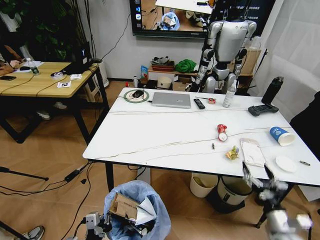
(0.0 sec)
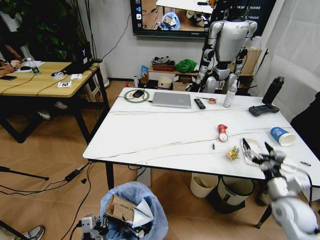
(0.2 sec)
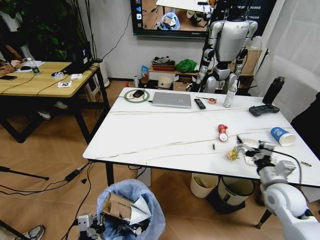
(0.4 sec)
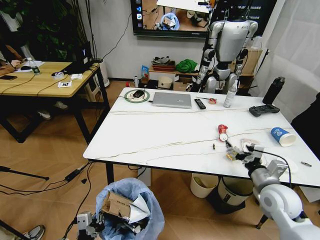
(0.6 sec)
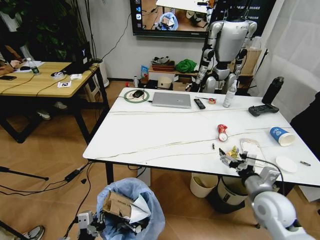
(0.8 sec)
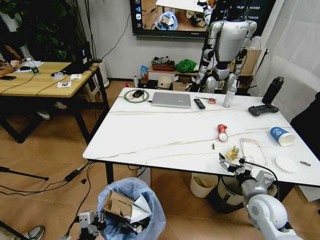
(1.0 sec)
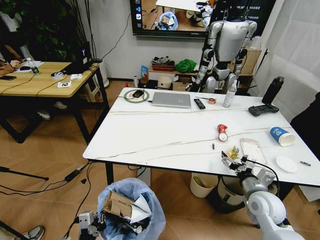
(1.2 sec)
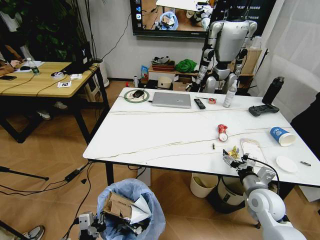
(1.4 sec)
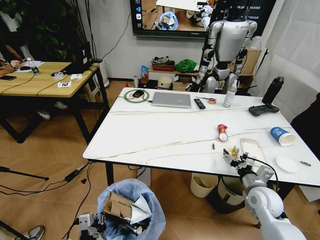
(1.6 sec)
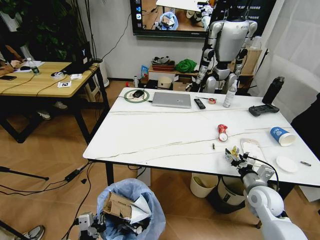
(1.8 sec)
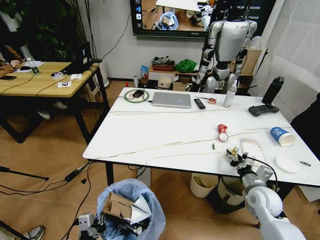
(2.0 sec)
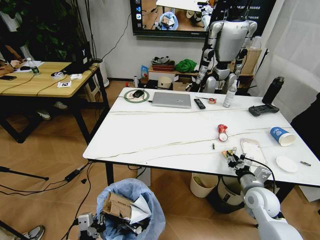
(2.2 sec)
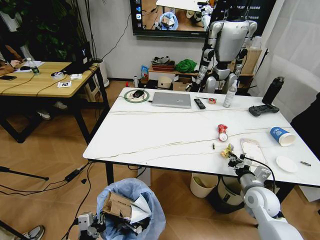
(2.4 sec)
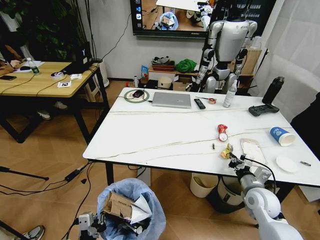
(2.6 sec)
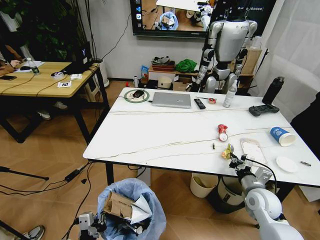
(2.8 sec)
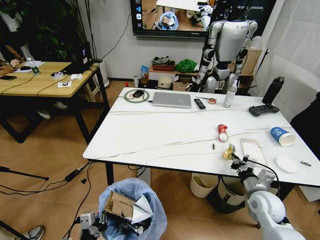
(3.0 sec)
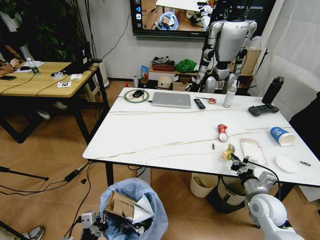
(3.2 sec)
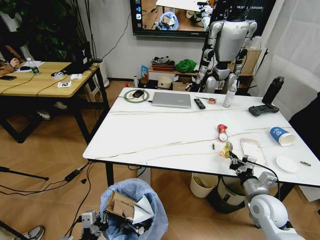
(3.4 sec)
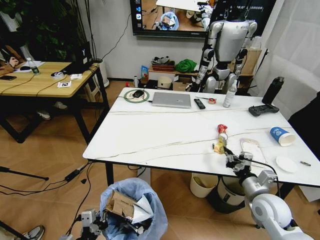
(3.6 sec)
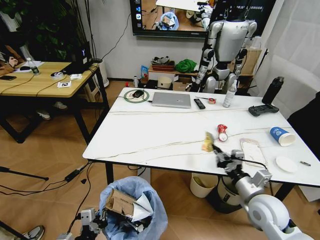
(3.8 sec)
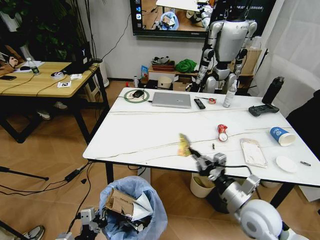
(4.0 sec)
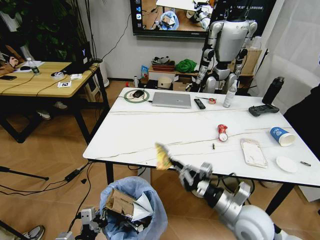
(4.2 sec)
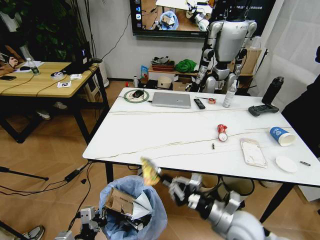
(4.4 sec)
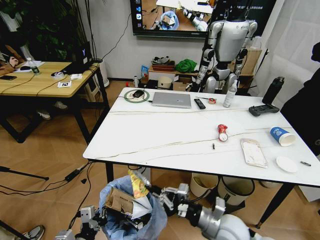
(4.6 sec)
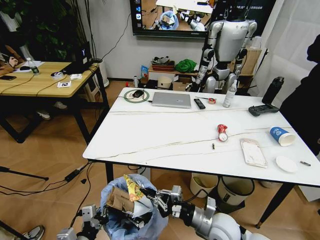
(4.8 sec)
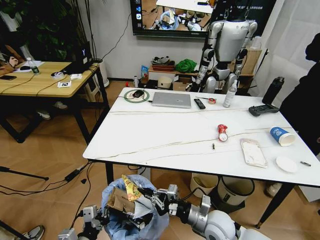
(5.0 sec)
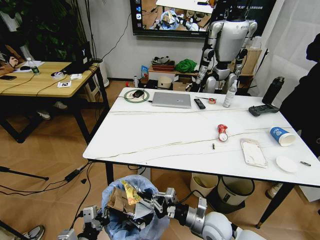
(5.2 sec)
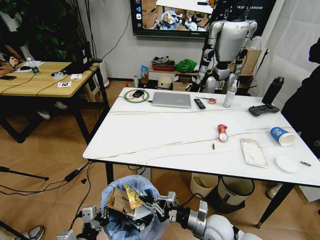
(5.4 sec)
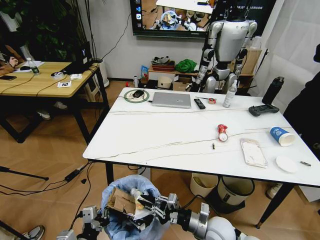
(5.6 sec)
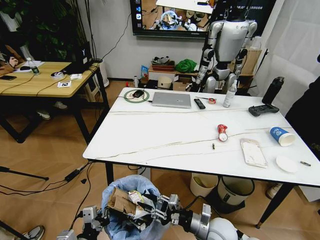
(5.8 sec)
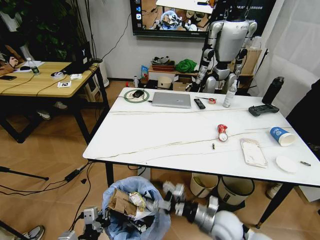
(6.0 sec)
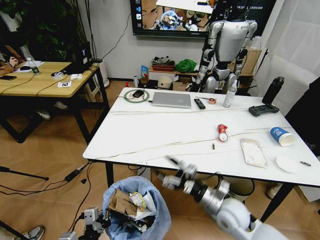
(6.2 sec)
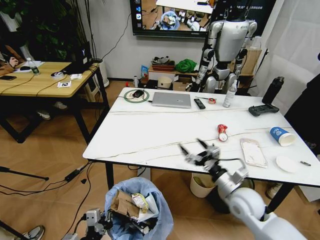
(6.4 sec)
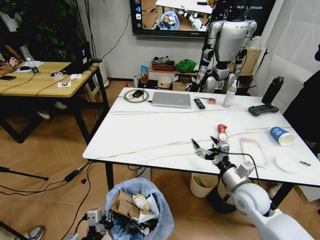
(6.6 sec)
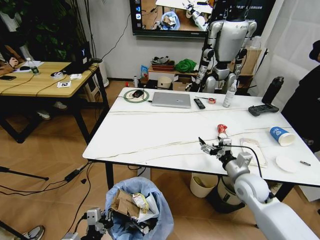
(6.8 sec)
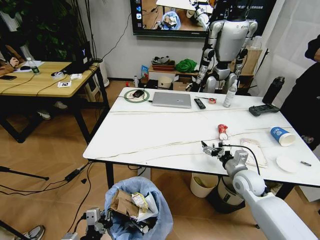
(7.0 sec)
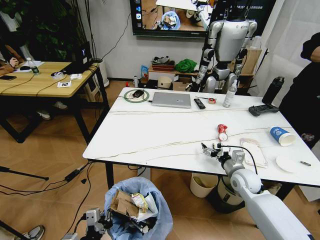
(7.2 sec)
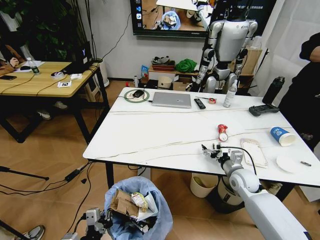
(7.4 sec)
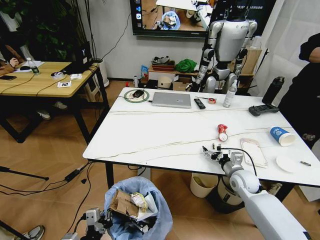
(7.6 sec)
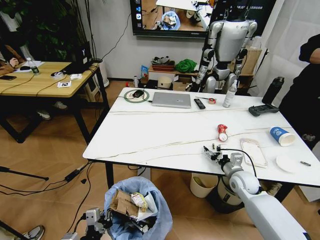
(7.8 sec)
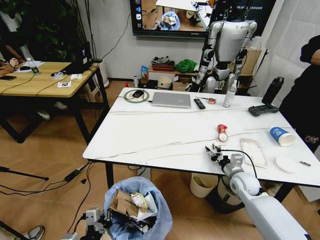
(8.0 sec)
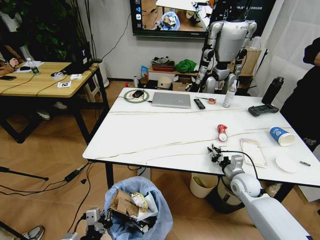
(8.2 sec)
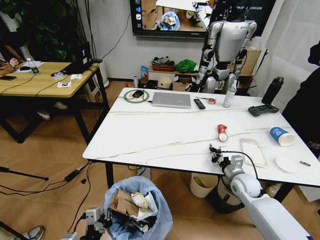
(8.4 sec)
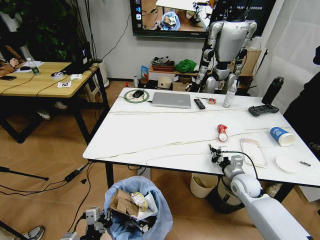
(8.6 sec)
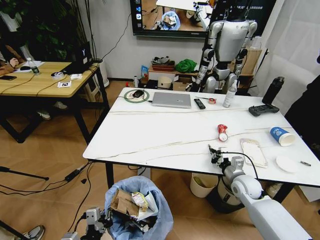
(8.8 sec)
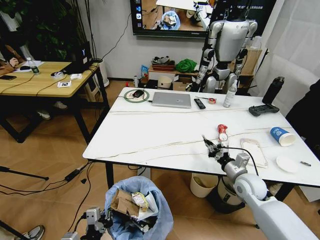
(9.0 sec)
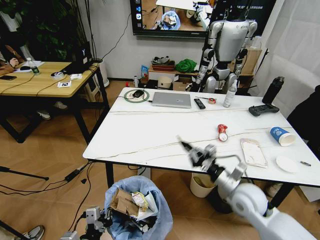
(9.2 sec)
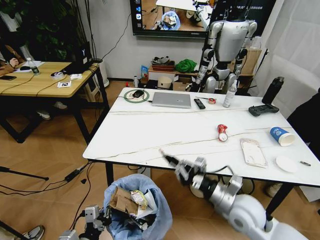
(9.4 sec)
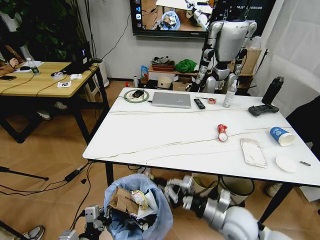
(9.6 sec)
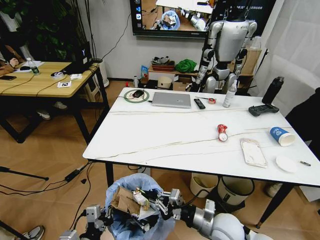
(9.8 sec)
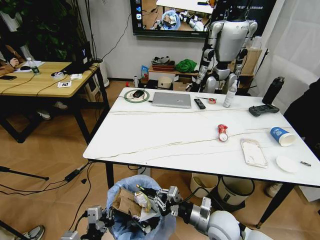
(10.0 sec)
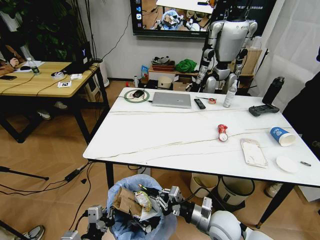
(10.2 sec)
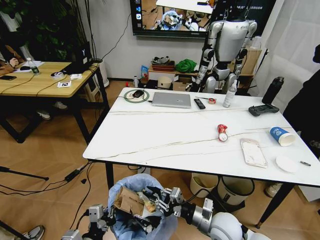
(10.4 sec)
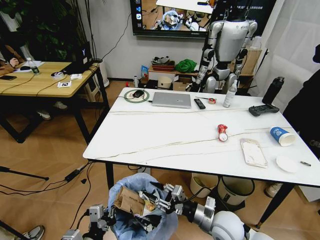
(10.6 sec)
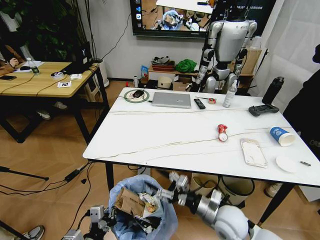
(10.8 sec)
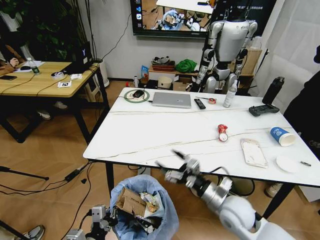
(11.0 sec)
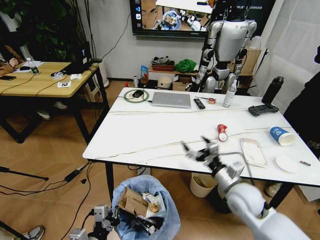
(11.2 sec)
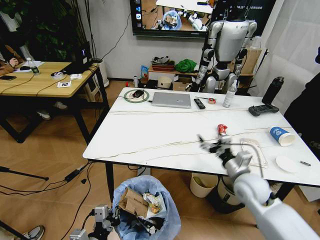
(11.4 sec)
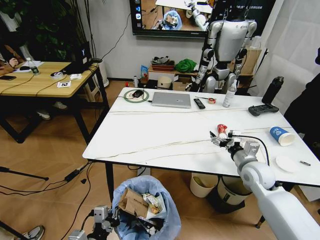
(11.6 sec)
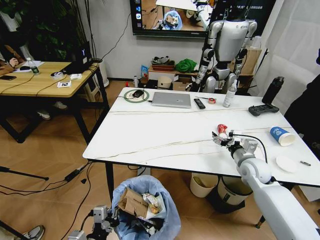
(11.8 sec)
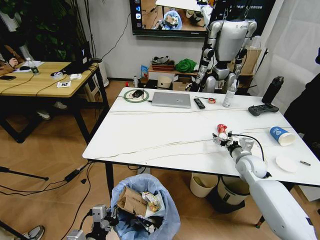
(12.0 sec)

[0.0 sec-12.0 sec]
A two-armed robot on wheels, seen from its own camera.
Task of the whole recording: Pick up the trash bin and place the trash from the table into it.
0.0 sec to 1.6 sec: The right gripper heads forward, upward and to the left, covering approximately 15 cm.
1.6 sec to 3.0 sec: The right gripper closes.
3.0 sec to 4.4 sec: The right gripper moves to the left and backward, roughly 15 cm.
4.4 sec to 6.0 sec: The right gripper heads downward, covering approximately 5 cm, and opens.
6.0 sec to 7.6 sec: The right gripper shifts some 20 cm forward and to the right, and opens.
7.6 sec to 9.0 sec: The right gripper changes place by approximately 5 cm, and closes.
9.0 sec to 10.4 sec: The right gripper heads backward and to the left, covering roughly 15 cm.
10.4 sec to 12.0 sec: The right gripper goes some 25 cm forward and to the right, and opens its fingers.

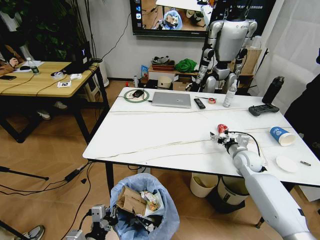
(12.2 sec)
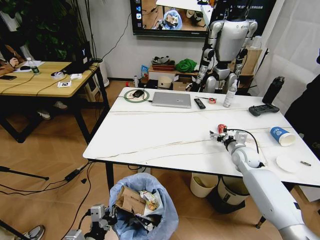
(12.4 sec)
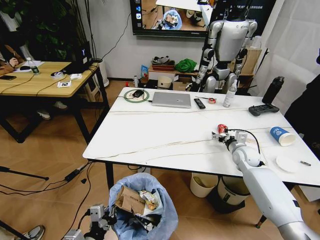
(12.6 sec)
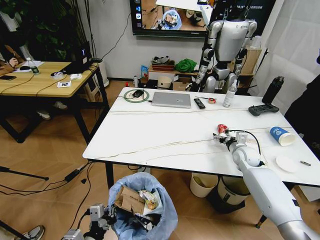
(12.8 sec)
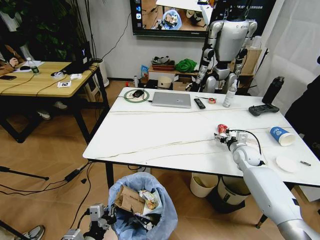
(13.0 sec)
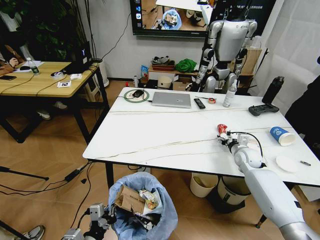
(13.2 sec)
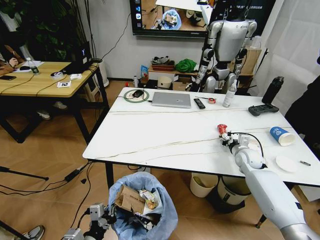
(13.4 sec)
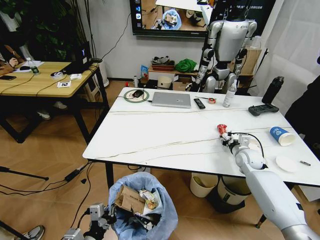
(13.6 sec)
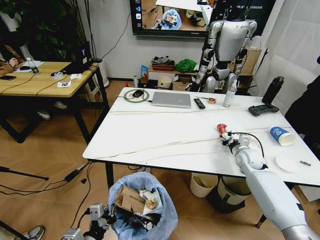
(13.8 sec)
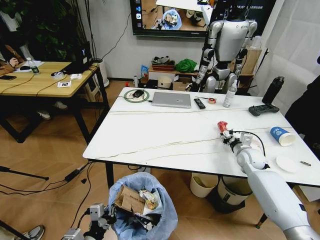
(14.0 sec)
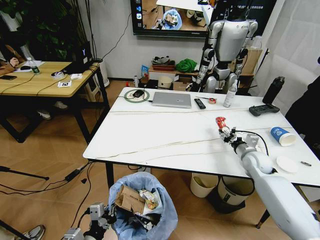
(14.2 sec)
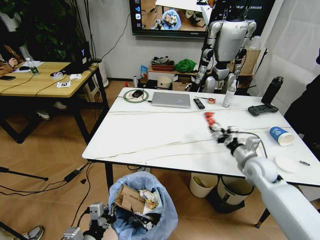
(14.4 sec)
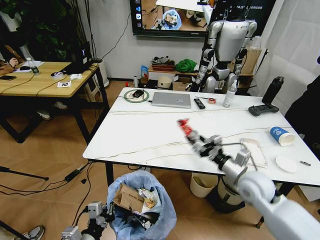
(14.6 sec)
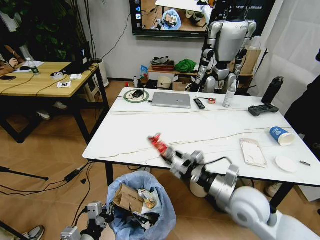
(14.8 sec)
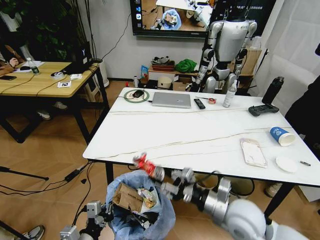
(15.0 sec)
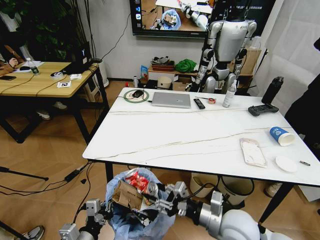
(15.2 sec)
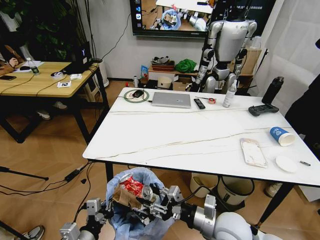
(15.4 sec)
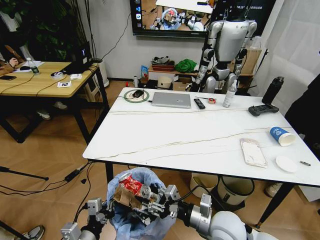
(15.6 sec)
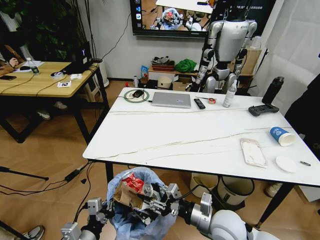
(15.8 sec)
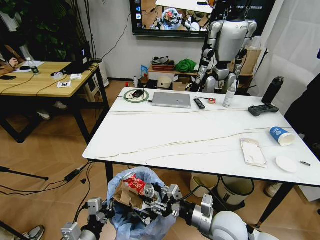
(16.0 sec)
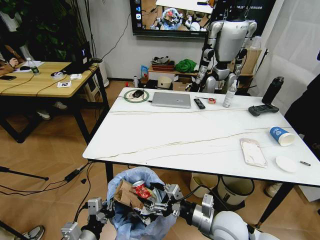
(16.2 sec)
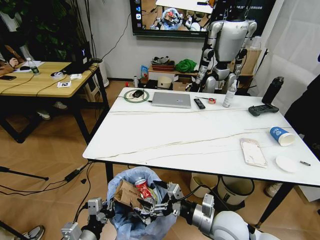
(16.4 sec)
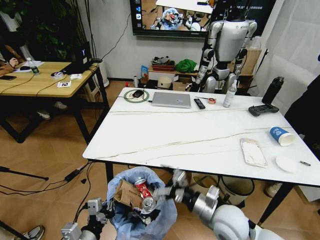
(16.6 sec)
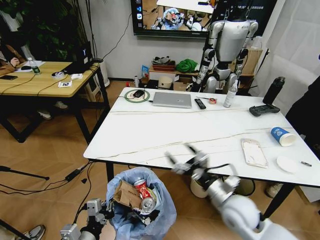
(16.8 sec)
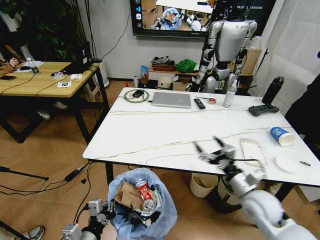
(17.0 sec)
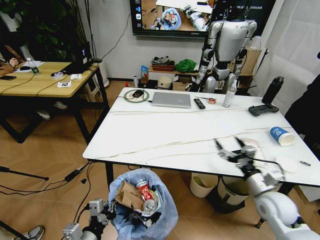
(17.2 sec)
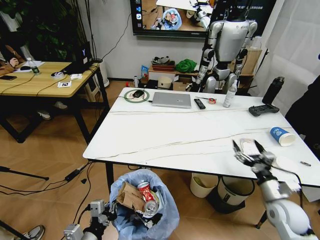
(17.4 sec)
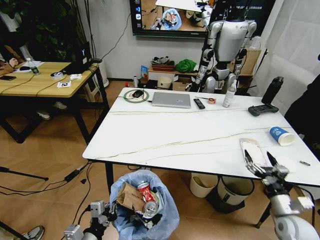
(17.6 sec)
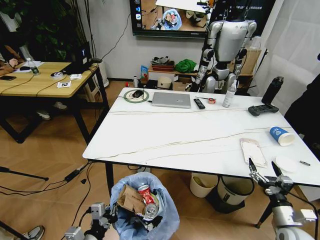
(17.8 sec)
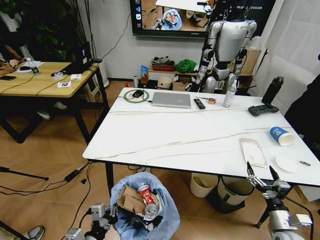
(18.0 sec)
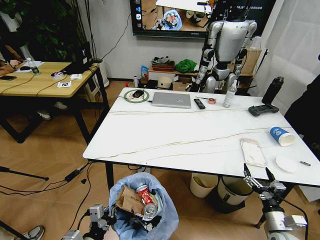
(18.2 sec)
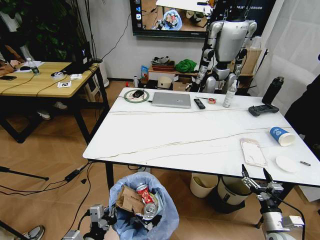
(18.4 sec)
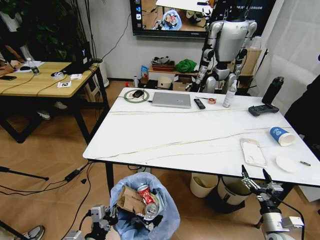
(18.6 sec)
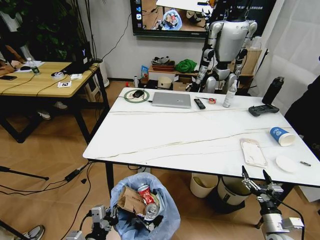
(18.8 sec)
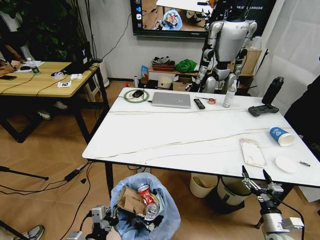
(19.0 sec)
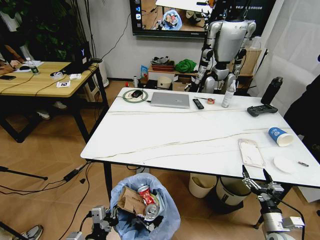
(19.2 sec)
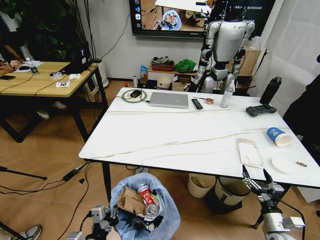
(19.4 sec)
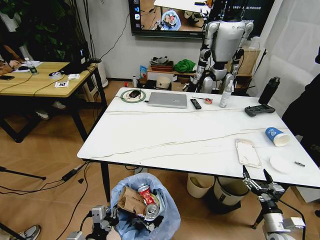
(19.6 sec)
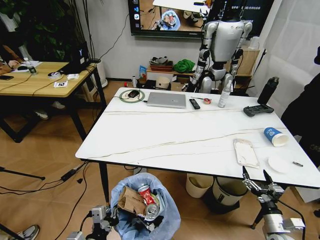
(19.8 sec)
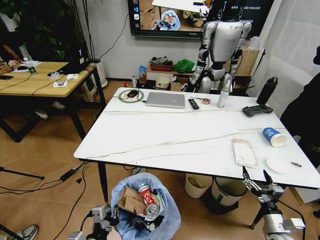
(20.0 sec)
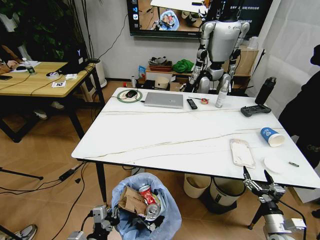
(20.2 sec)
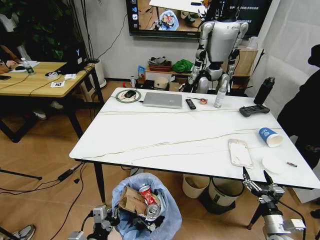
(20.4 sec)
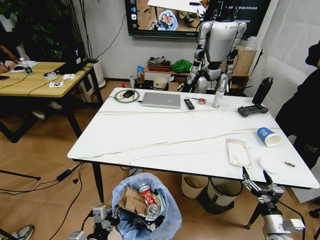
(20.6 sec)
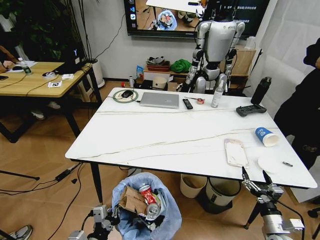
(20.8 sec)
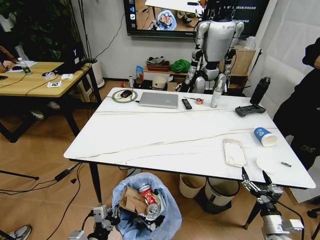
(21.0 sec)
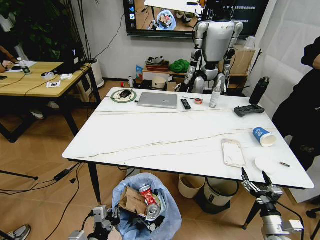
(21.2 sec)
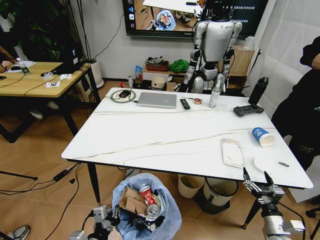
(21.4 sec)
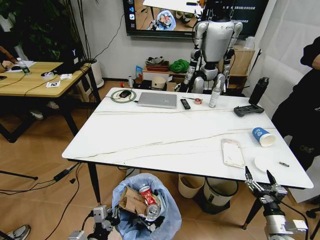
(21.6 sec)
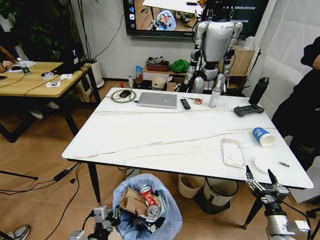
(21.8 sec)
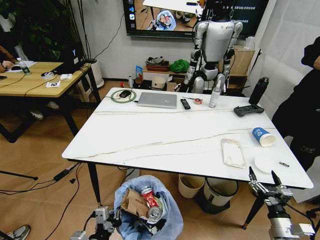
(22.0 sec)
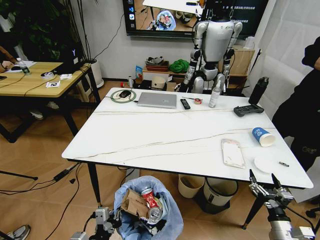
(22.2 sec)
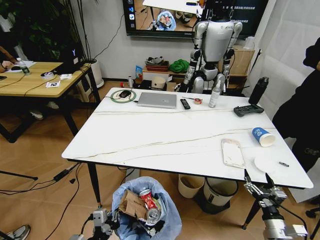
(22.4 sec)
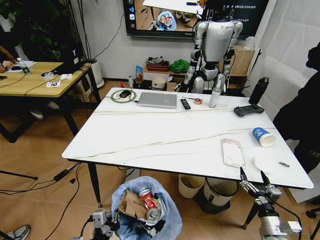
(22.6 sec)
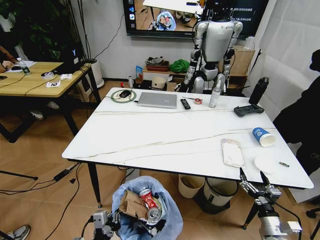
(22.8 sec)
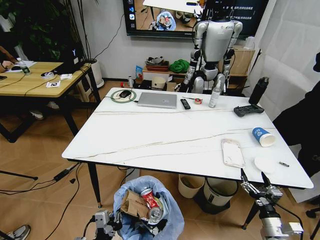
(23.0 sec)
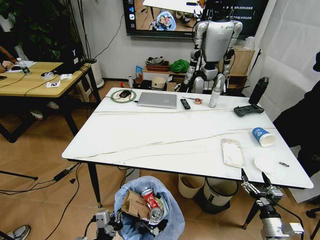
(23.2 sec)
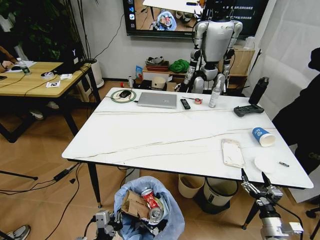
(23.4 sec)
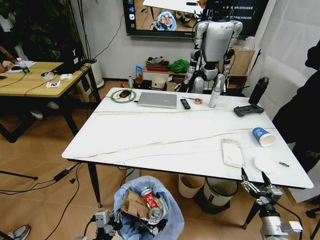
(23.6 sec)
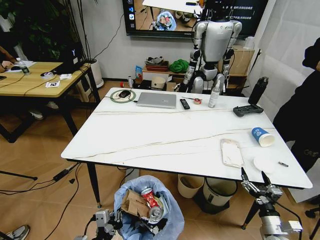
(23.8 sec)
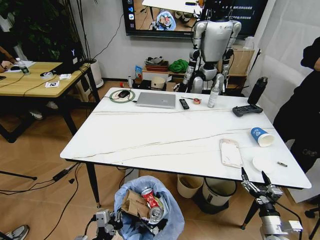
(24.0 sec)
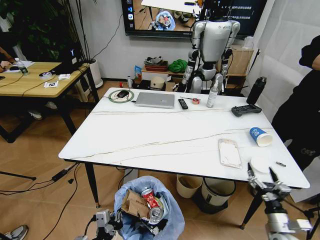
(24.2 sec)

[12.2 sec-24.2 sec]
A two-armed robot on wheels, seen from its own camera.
Task of the whole recording: Pick up the trash bin and place the trash from the table into it.
12.2 sec to 13.8 sec: The right gripper closes its fingers.
13.8 sec to 15.2 sec: The right gripper heads backward and to the left, covering about 30 cm.
15.2 sec to 16.6 sec: The right gripper opens up.
16.6 sec to 18.2 sec: The right gripper moves to the right and downward, approximately 25 cm.
21.2 sec to 22.6 sec: The grippers move only a little.
